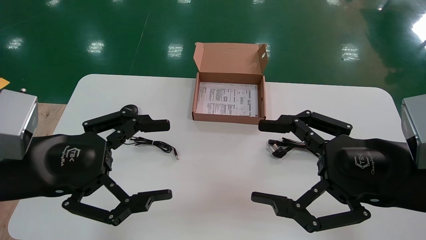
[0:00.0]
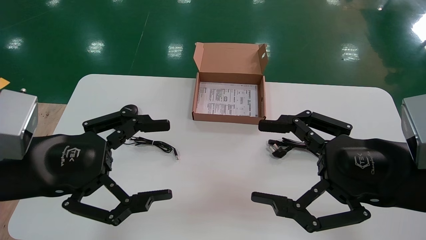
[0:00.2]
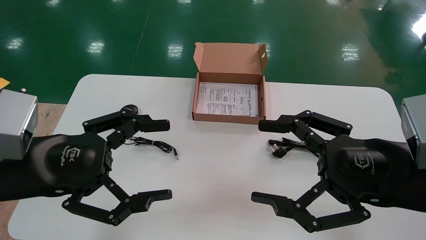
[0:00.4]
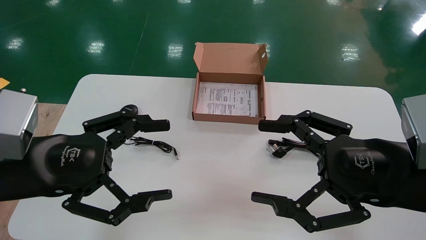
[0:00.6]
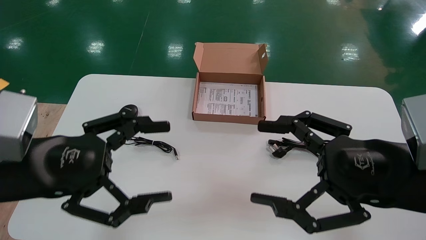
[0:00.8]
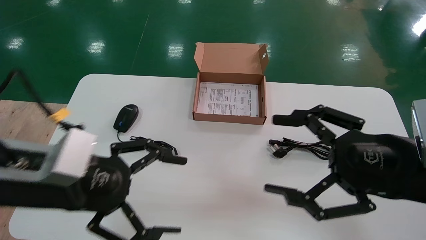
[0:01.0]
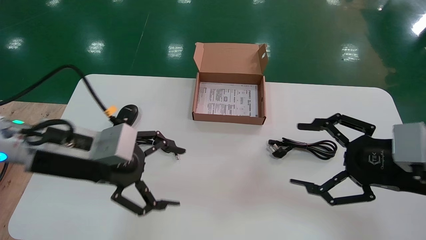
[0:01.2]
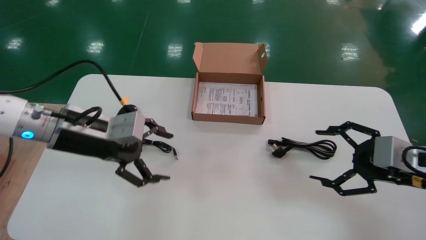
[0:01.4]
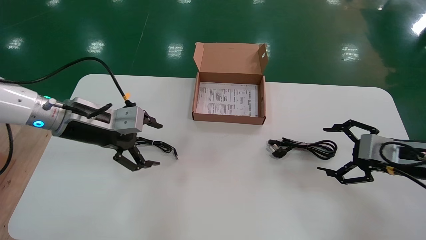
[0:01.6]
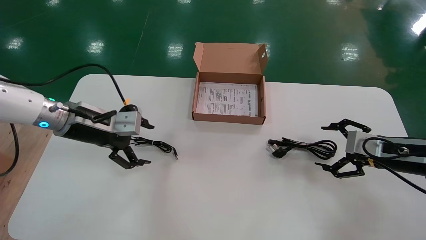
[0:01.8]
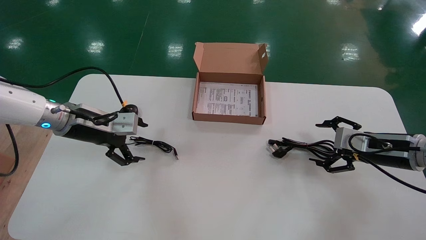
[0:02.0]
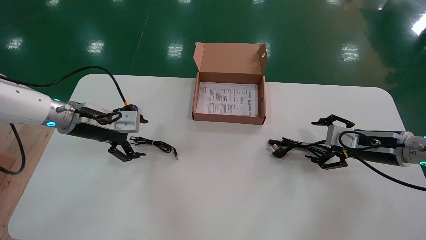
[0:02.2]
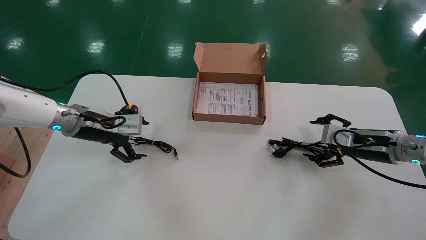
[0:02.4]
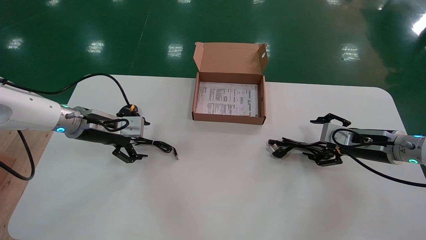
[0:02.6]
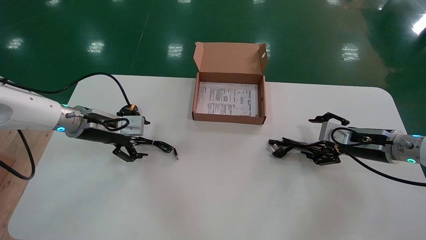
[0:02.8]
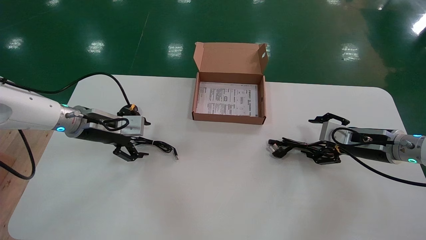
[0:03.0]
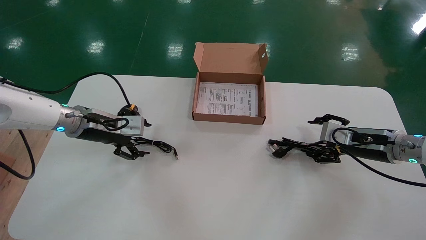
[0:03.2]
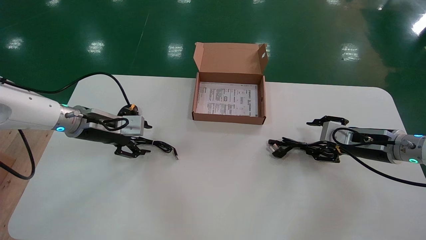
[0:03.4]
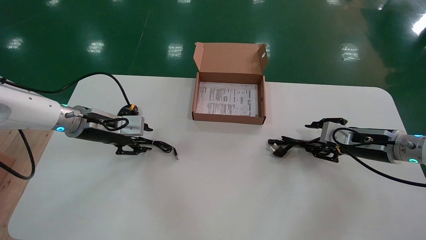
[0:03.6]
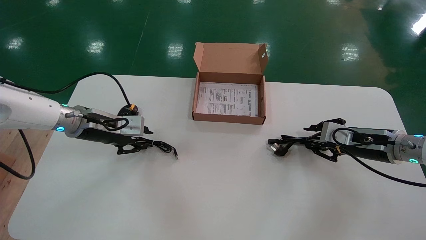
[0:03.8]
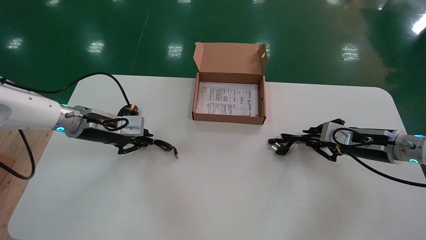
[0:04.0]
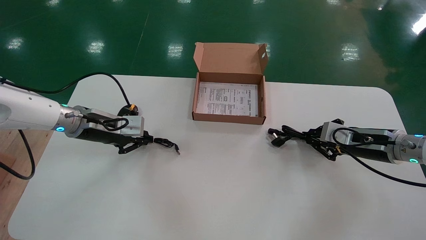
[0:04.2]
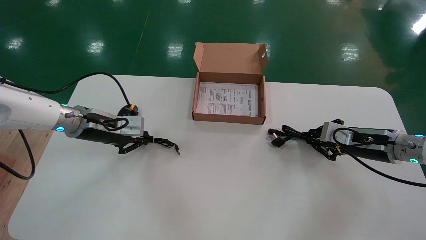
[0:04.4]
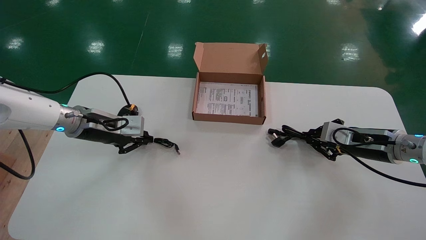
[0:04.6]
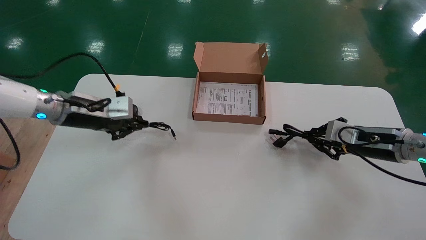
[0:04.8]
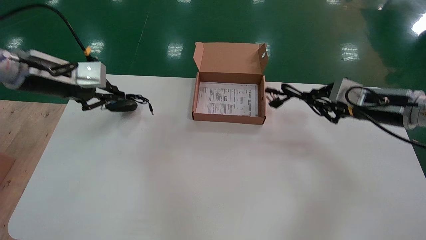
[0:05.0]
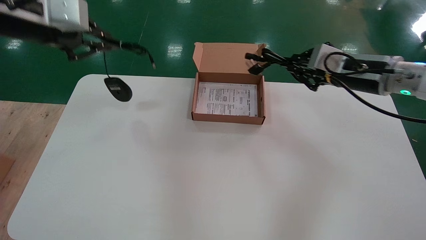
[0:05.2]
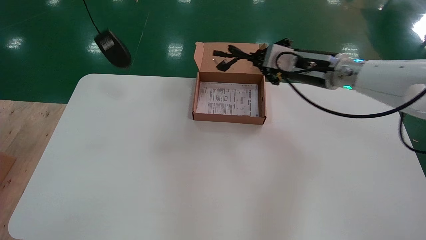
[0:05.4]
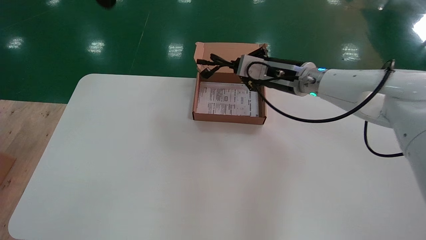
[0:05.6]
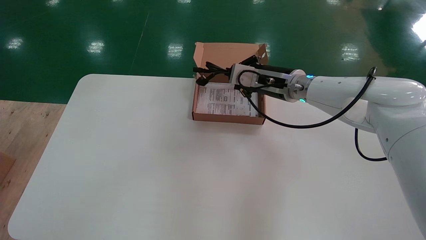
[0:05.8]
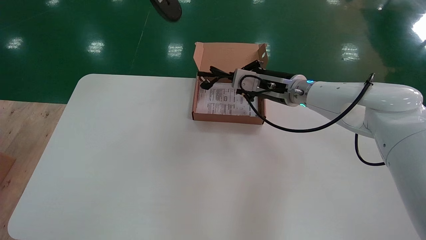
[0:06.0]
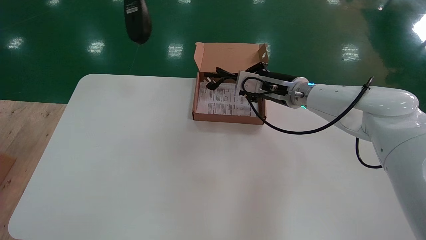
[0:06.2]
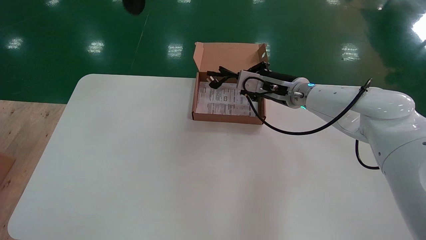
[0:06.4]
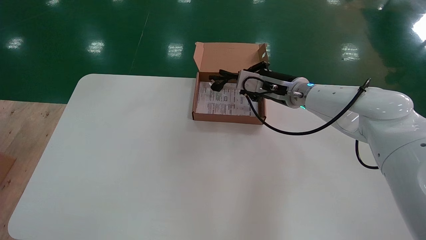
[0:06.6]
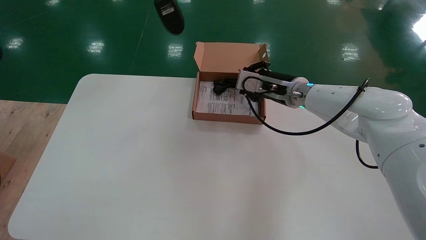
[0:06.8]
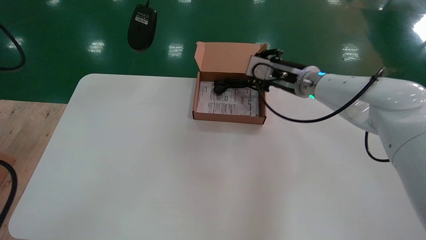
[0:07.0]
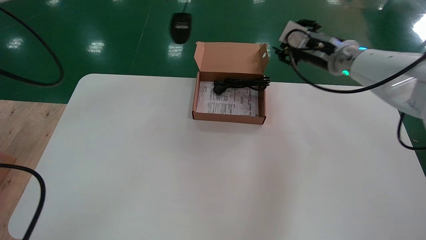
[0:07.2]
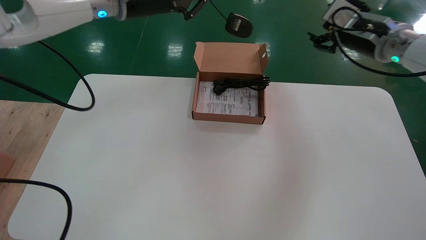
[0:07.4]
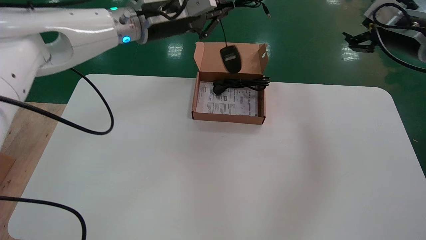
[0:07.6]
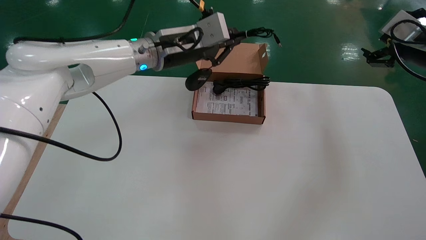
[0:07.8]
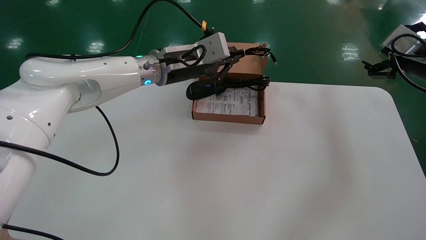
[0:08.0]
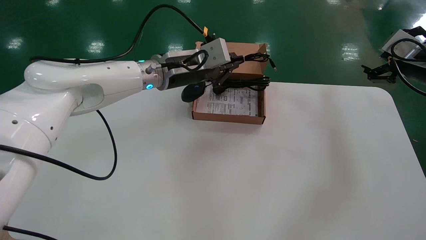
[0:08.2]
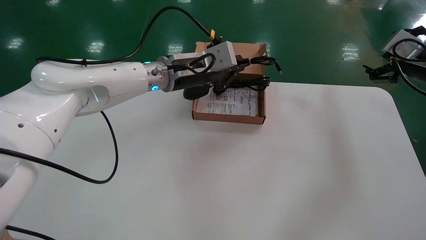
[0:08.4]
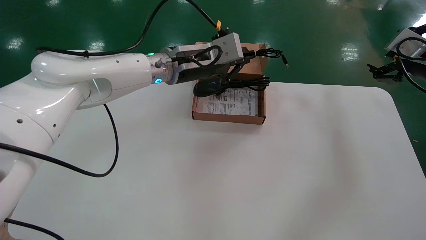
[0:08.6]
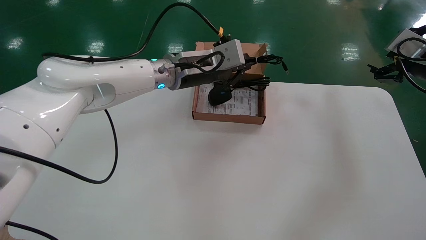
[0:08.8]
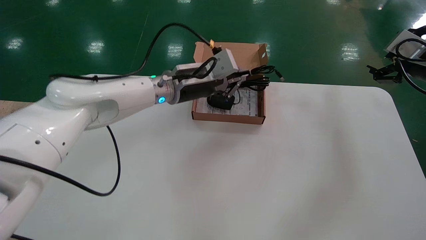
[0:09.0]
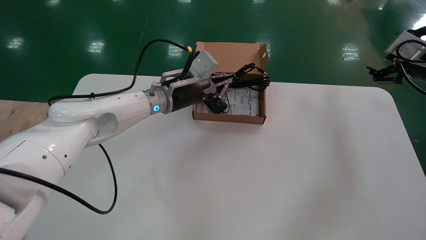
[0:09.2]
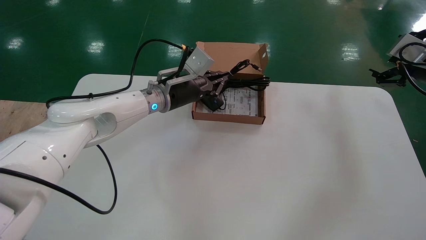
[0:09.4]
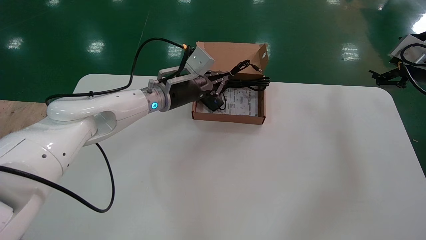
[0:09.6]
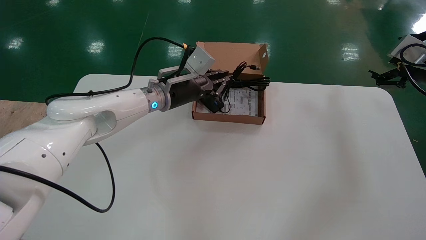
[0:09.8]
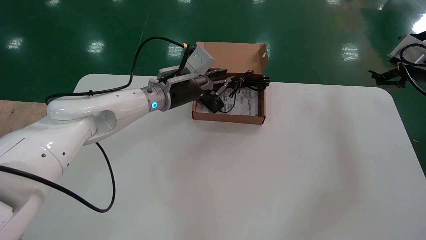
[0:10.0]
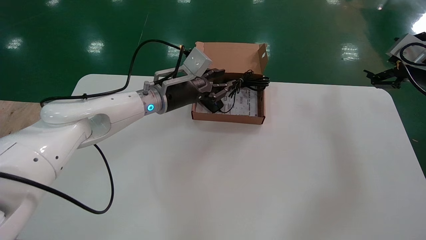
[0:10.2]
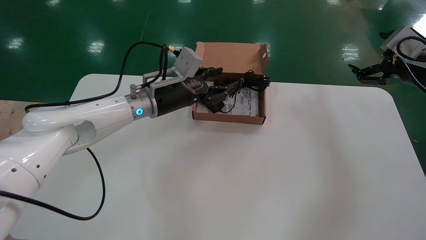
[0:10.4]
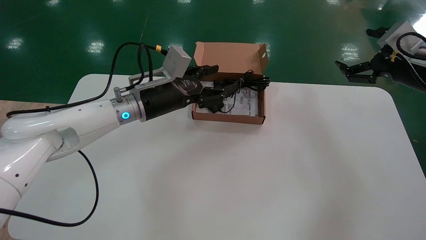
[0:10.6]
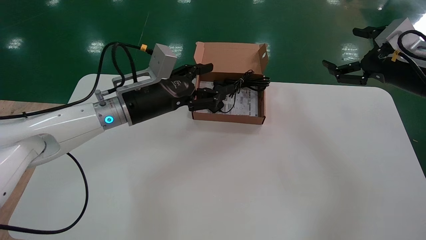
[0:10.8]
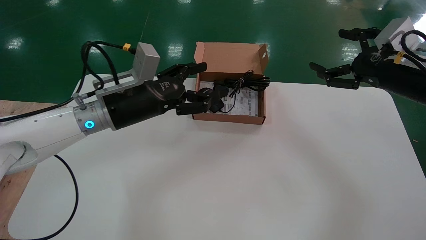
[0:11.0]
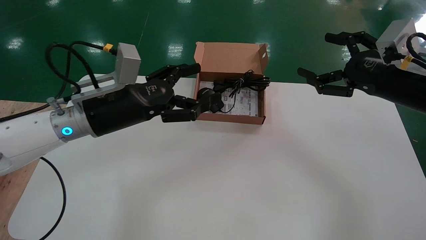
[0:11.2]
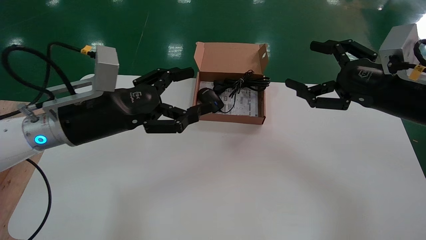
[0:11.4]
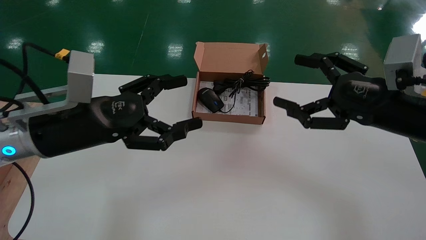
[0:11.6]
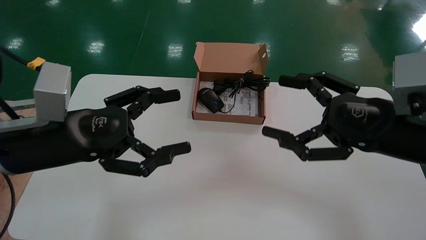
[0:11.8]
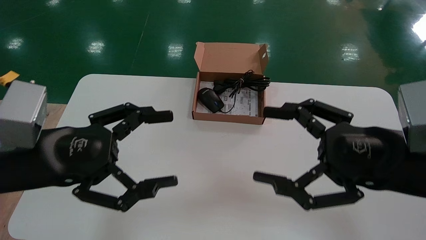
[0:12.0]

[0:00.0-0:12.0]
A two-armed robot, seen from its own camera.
Step, 0:01.0 to 0:05.2: Simultaneously pick up the mouse and power cord from the accessory packaging area.
Step, 0:05.4 to 0:10.0: Place the mouse and power cord into the box.
0:00.0 to 0:01.6: The right gripper heads forward, to the right and downward, covering about 20 cm. Meanwhile the left gripper travels forward by about 15 cm.
0:01.6 to 0:03.0: Both grippers travel together forward, approximately 5 cm.
0:03.0 to 0:04.4: The left gripper closes up, while the right gripper closes up.
0:04.4 to 0:06.0: The left gripper shifts roughly 30 cm upward, while the right gripper goes roughly 25 cm to the left and upward.
0:06.0 to 0:07.6: The right gripper shifts some 25 cm to the right and upward, and opens; the left gripper goes some 20 cm to the right, downward and forward.
0:07.6 to 0:09.0: The right gripper travels to the right by about 5 cm, while the left gripper moves downward, some 10 cm.
0:09.0 to 0:10.4: The left gripper moves some 5 cm, and opens its fingers.
0:10.4 to 0:12.0: The two grippers go about 25 cm backward and to the left. The left gripper opens.

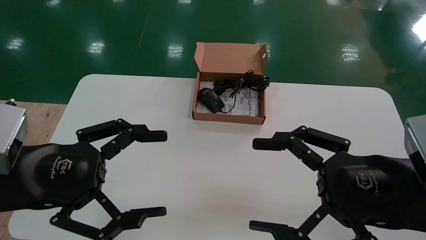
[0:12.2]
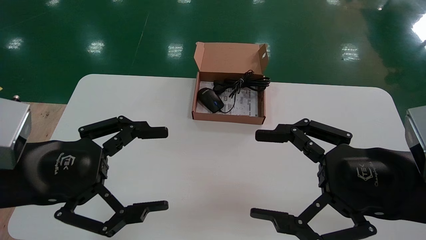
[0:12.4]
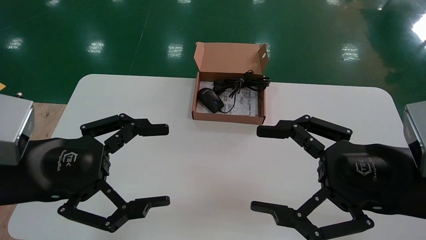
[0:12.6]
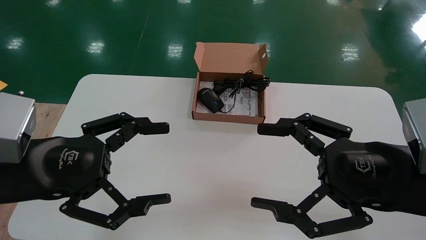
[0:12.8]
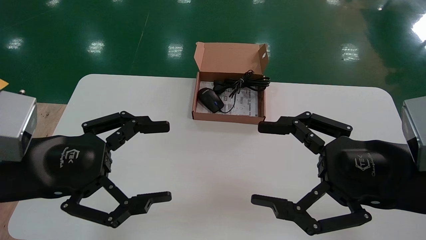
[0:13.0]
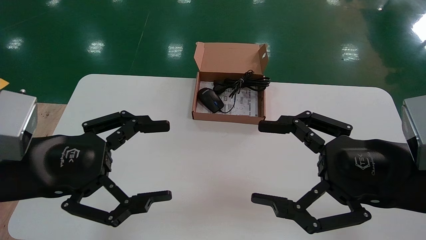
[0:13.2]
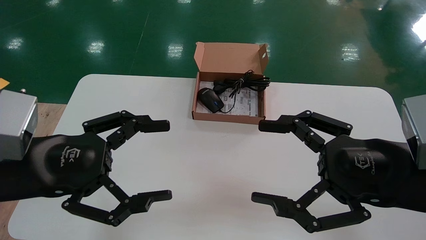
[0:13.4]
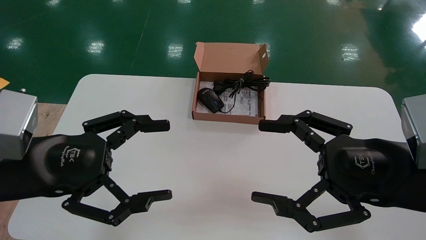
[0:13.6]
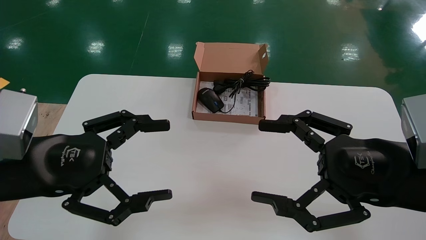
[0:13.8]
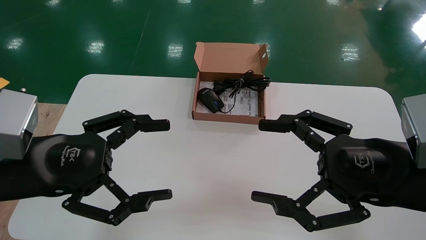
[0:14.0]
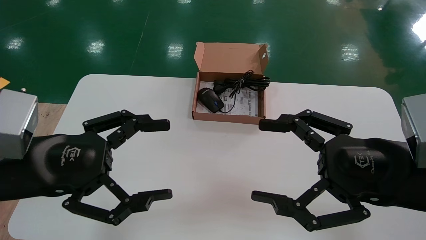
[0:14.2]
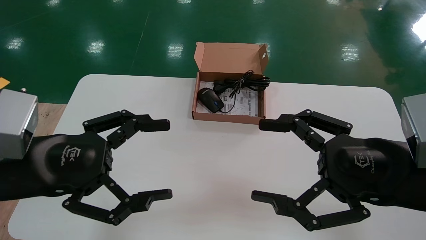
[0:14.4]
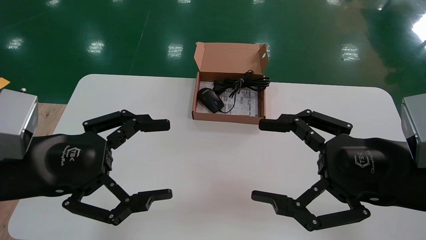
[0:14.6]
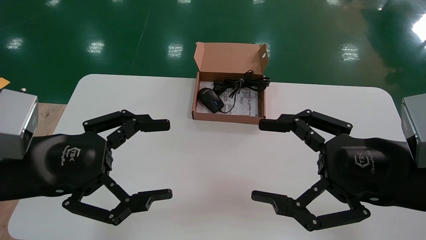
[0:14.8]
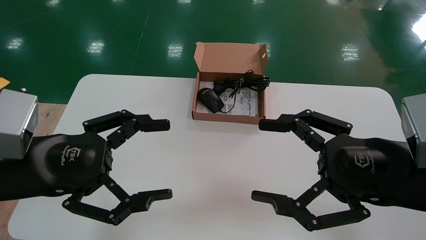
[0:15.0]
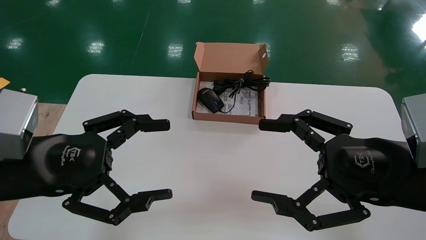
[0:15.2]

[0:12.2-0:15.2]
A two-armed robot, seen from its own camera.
0:13.8 to 0:15.2: The two grippers keep their place.
